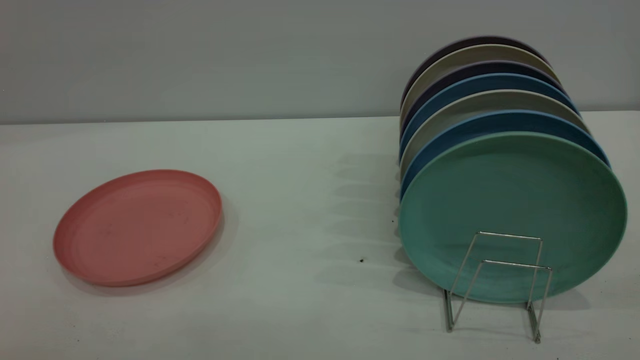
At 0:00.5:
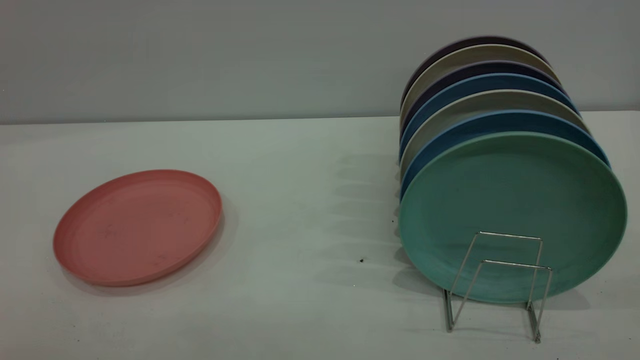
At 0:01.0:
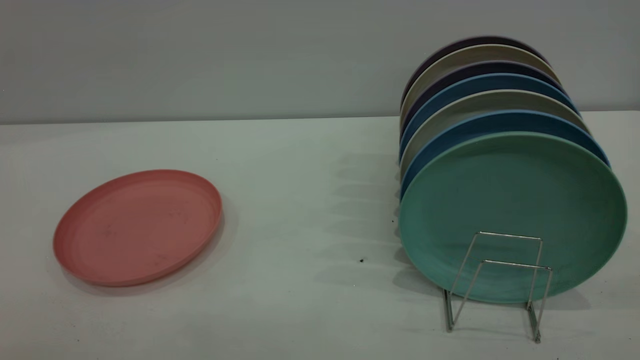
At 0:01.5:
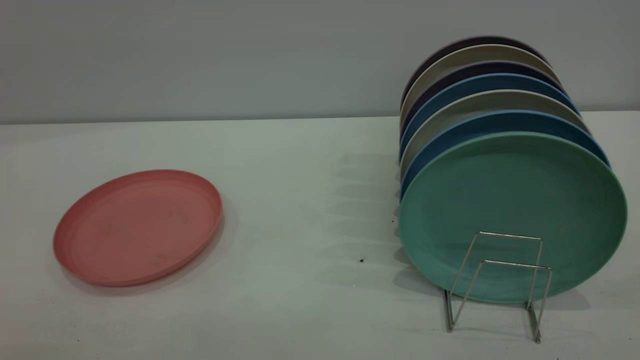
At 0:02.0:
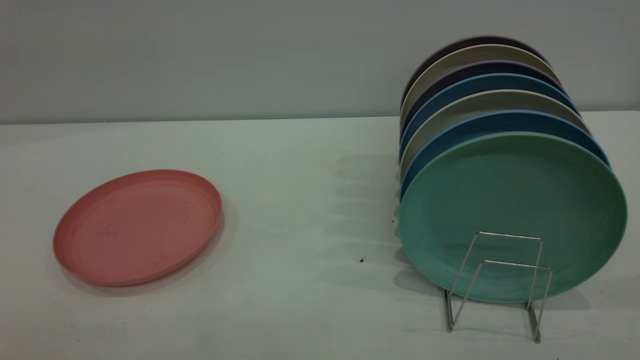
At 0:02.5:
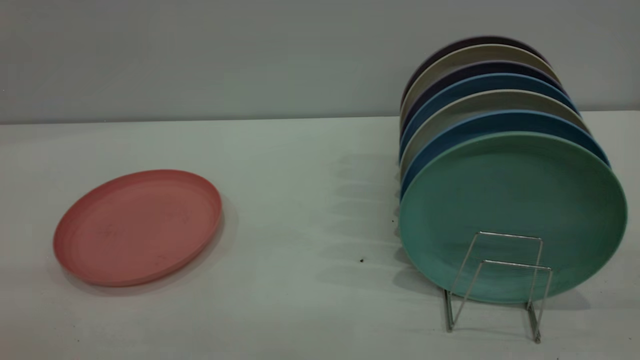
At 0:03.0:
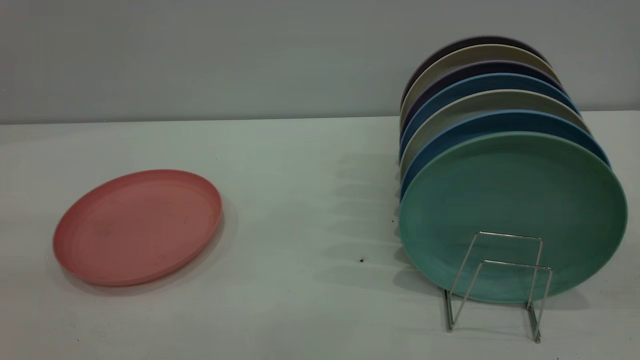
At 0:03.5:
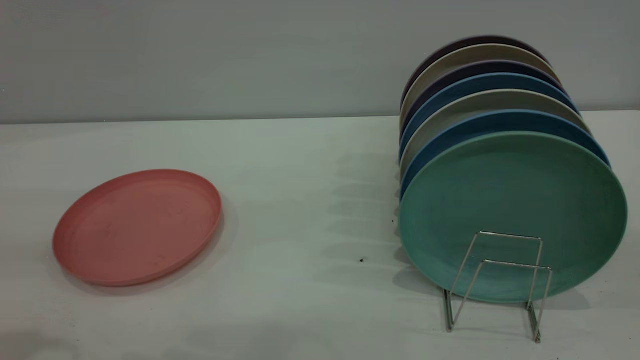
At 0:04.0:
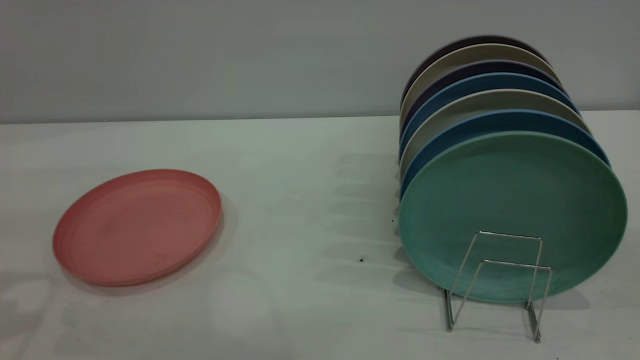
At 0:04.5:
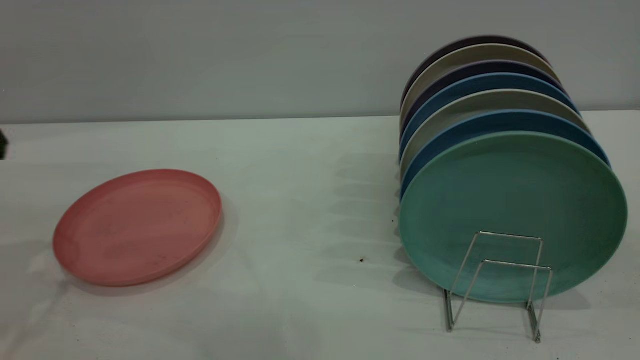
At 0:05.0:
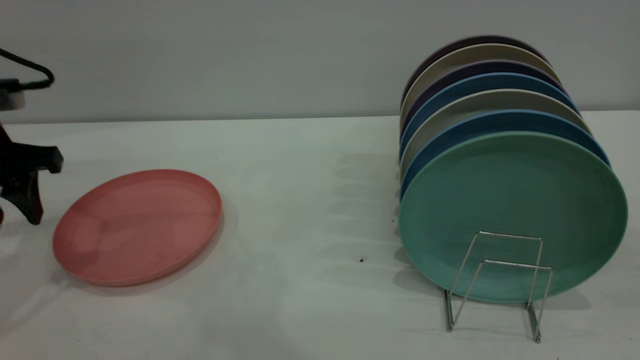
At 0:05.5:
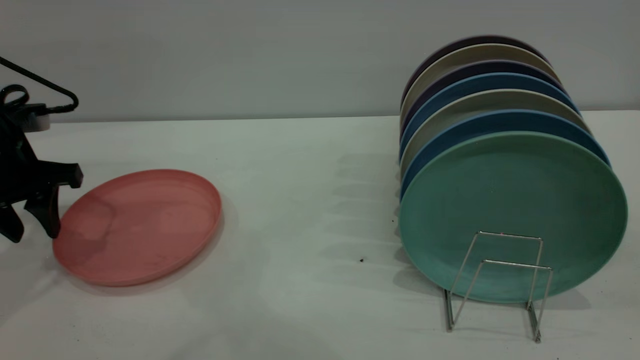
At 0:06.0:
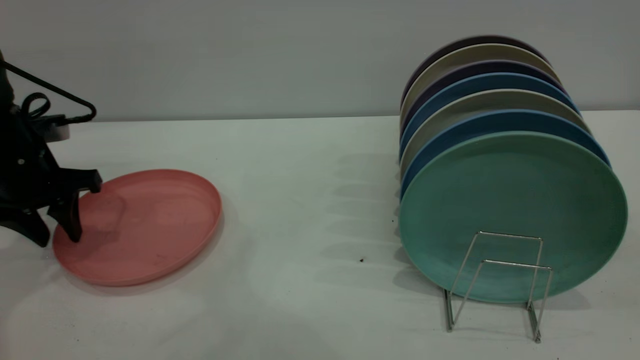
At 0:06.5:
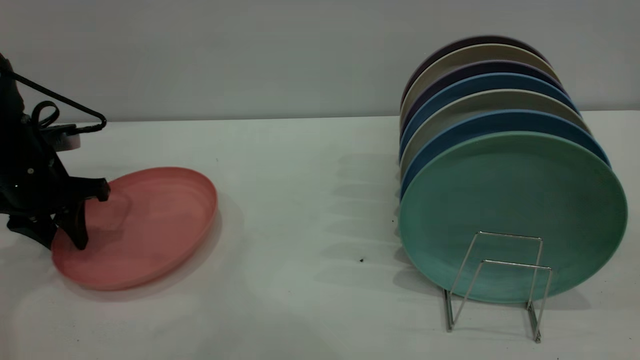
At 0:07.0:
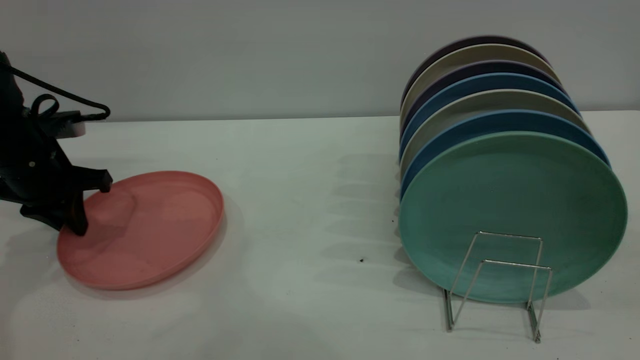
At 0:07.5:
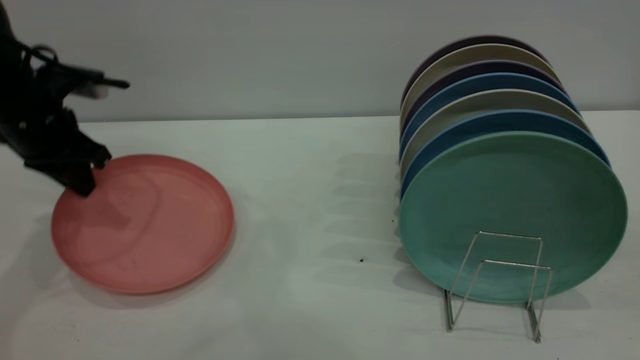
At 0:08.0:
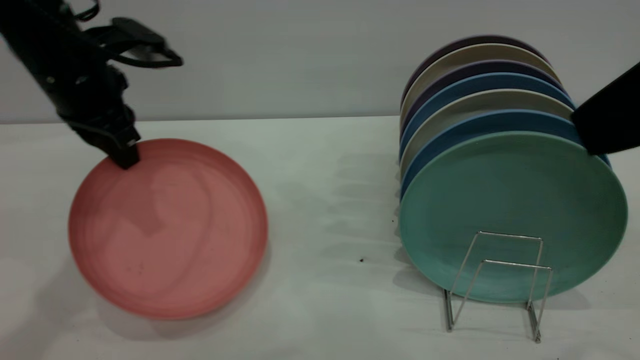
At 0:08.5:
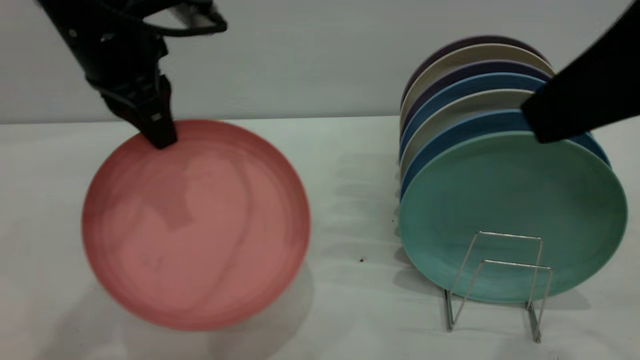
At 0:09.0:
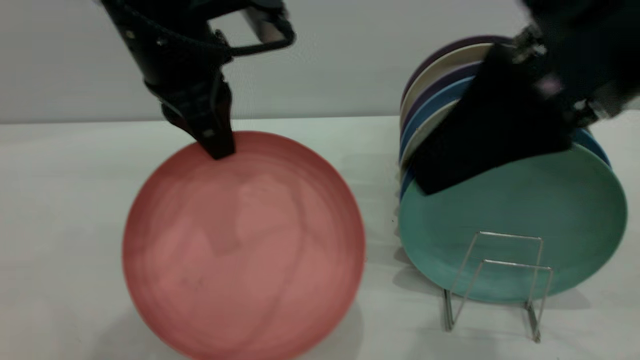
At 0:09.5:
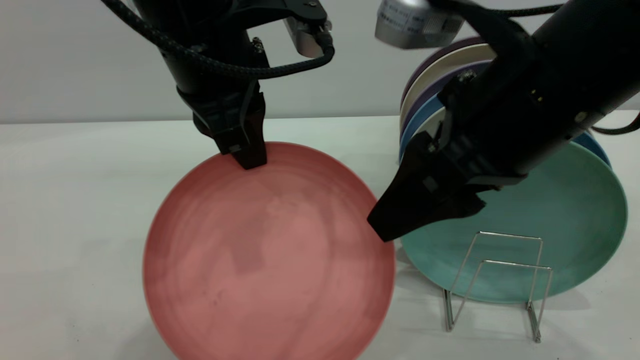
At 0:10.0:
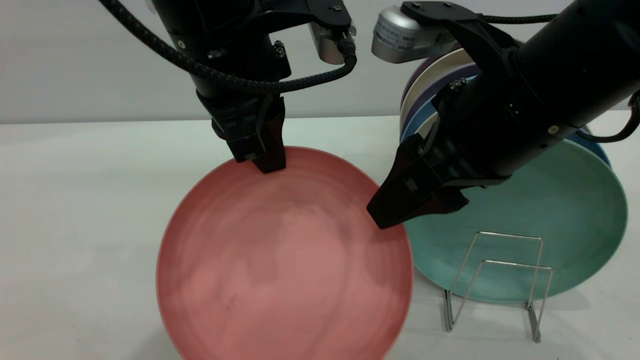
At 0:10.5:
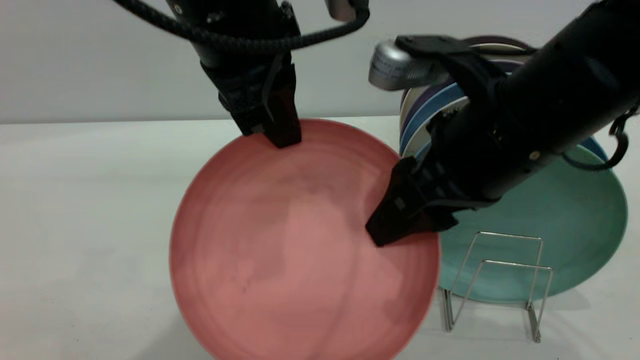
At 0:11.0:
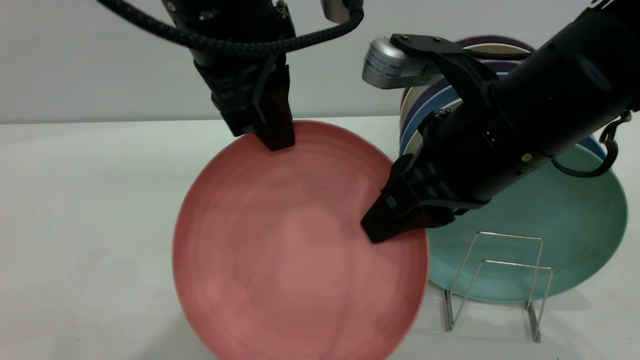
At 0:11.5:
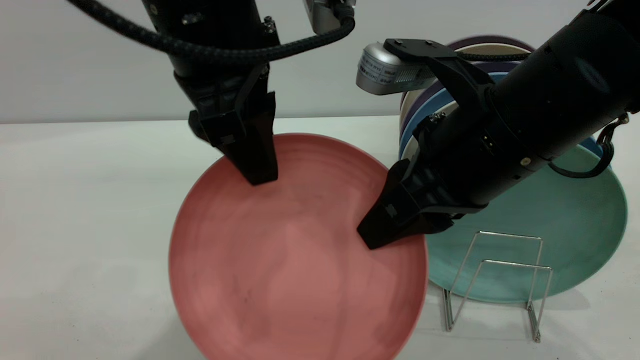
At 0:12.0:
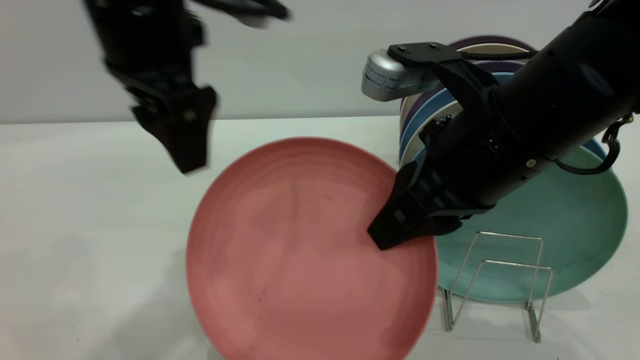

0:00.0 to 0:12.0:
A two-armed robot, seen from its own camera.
Task of the whole recording: put the plate on the plate rack.
Step, 0:00.0 to 0:07.5: Pick up the plate with the left gripper.
Step, 0:08.5 to 0:11.5: Pass the plate from the left gripper to the right gripper.
0:04.0 to 0:06.0: The left gripper heads downward and forward, covering approximately 20 cm.
0:06.0 to 0:08.0: The left gripper heads to the right and upward, covering approximately 15 cm, and closes.
0:08.0 to 0:10.0: The right gripper goes some 15 cm downward, forward and to the left, and opens. Meanwhile the left gripper travels to the right and backward by some 20 cm.
0:10.0 to 0:12.0: The left gripper shifts roughly 5 cm to the left, and opens up; the right gripper closes its fingers.

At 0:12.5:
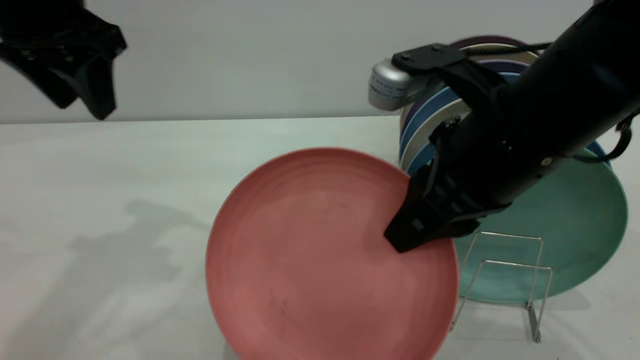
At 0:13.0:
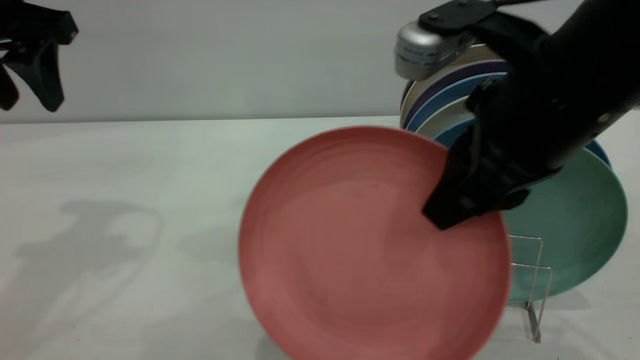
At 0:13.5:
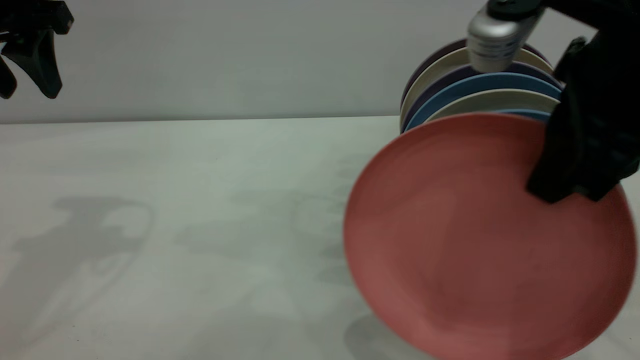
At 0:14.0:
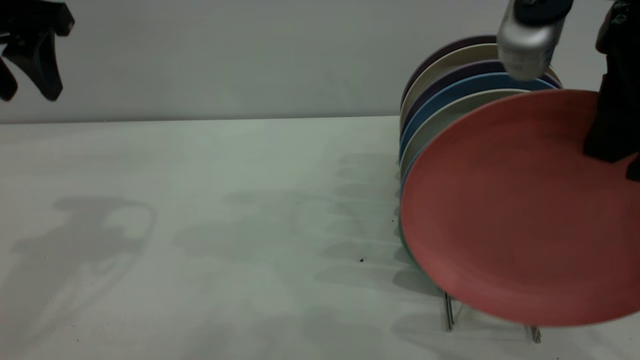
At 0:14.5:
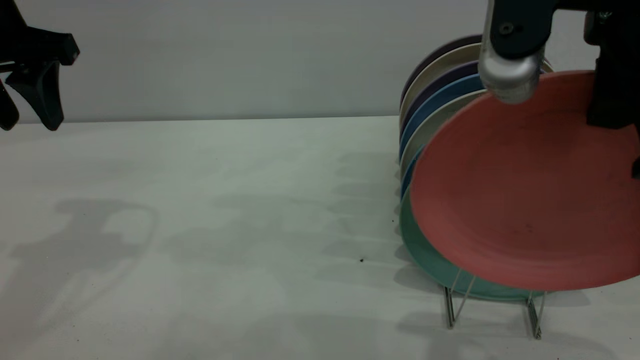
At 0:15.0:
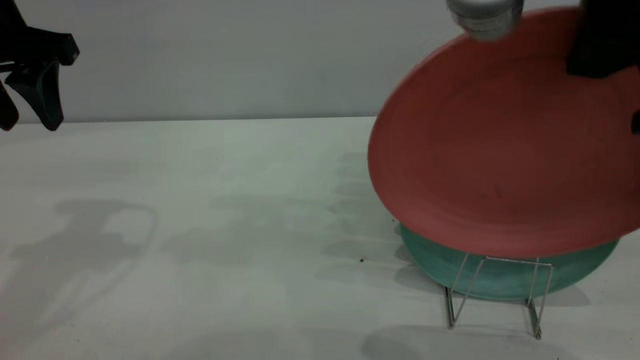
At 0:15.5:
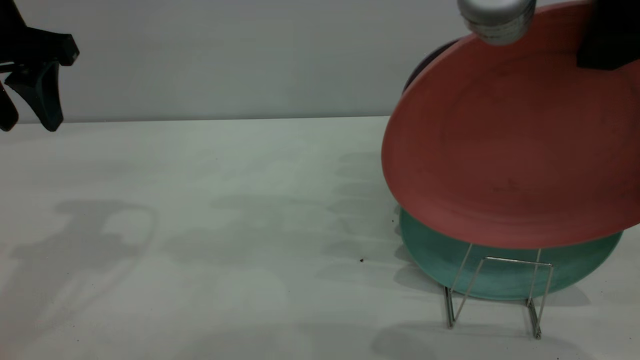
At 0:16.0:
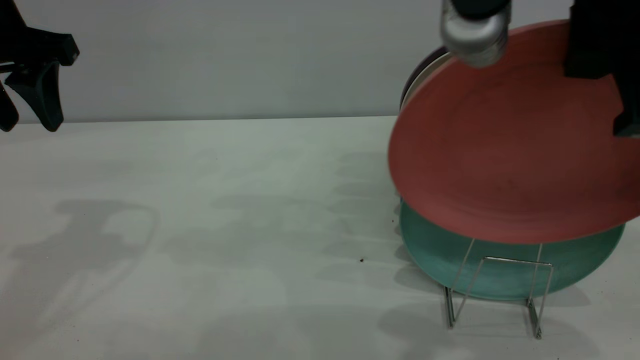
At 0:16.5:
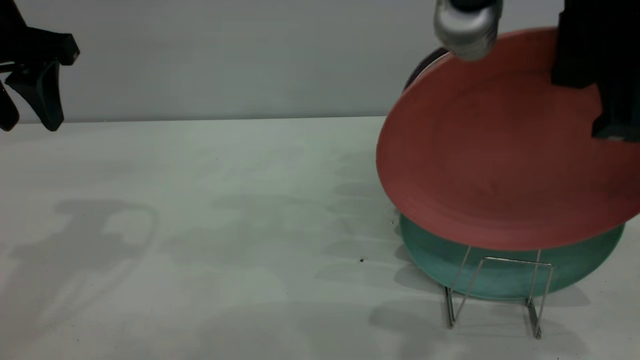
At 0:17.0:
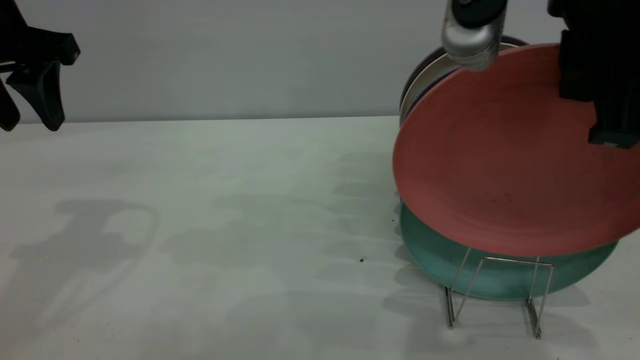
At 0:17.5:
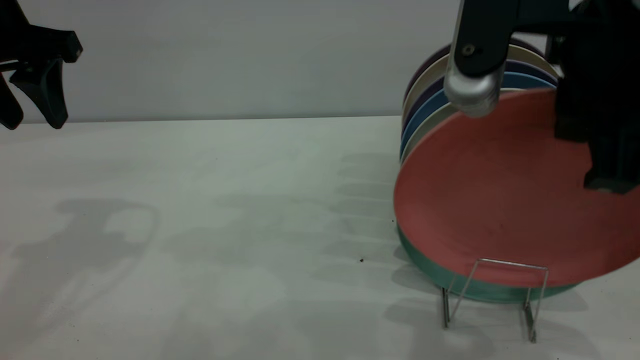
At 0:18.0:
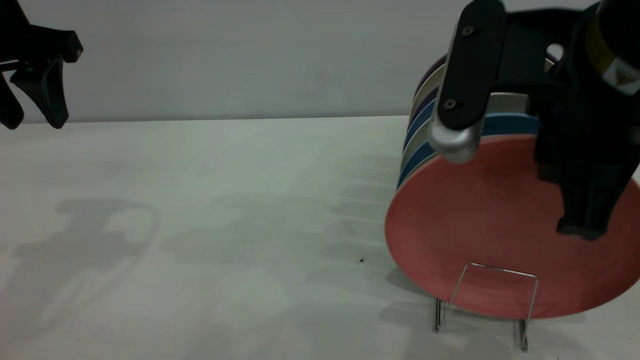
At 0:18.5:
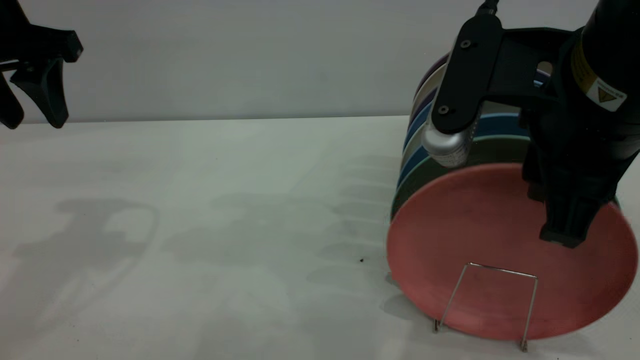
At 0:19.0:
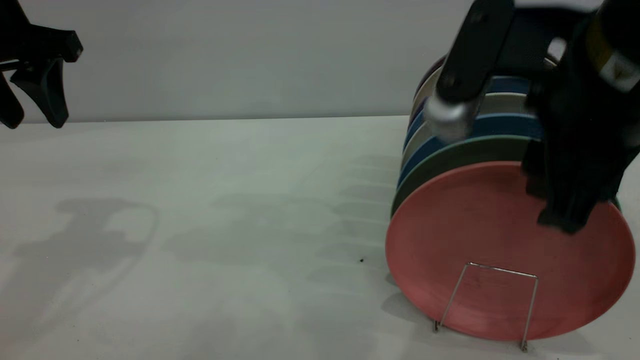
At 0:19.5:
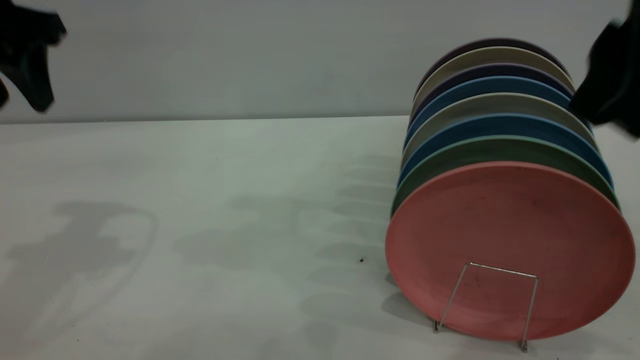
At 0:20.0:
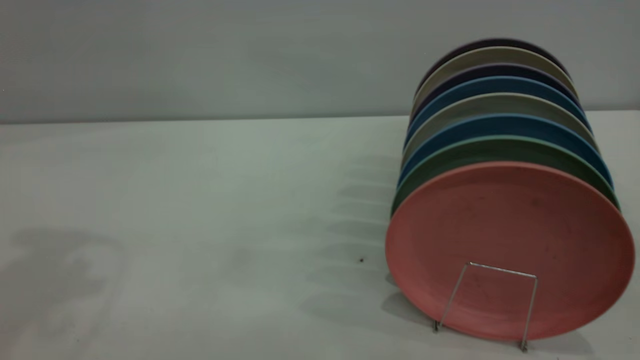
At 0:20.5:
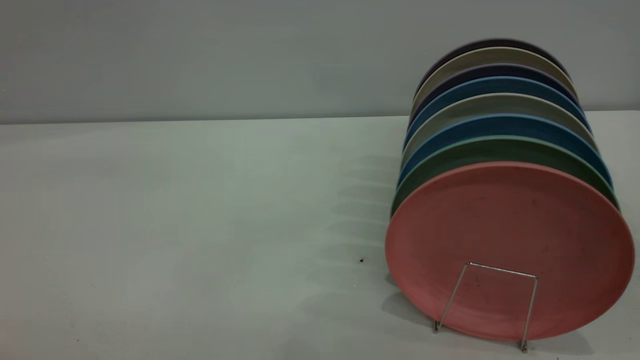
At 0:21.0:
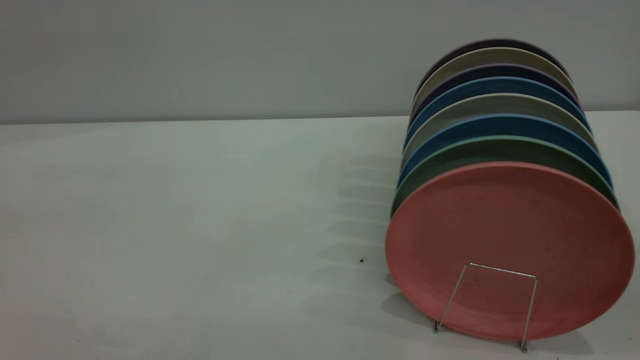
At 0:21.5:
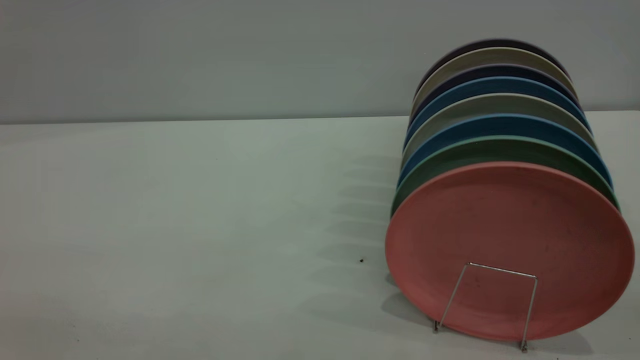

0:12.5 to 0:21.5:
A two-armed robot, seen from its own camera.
Task of the whole recording: put the plate on the plate rack.
Step, 0:12.5 to 0:19.5: Place the plate on the shelf.
0:12.5 to 0:14.5: The left gripper moves to the left, about 5 cm. Meanwhile the right gripper travels upward and backward by some 10 cm.
0:14.5 to 0:17.0: There are only small adjustments of the grippers.
0:17.0 to 0:19.5: The right gripper travels downward and back again, some 5 cm each way, and opens its fingers.
0:19.5 to 0:21.5: The left gripper is displaced backward by approximately 35 cm. Meanwhile the right gripper goes approximately 20 cm backward and to the right.
